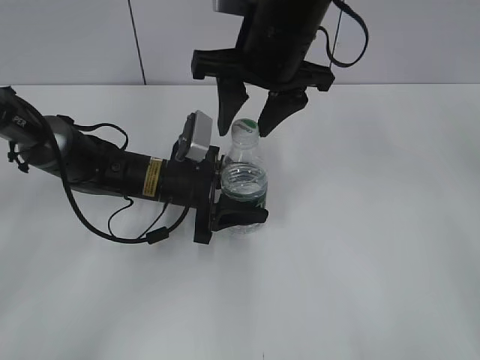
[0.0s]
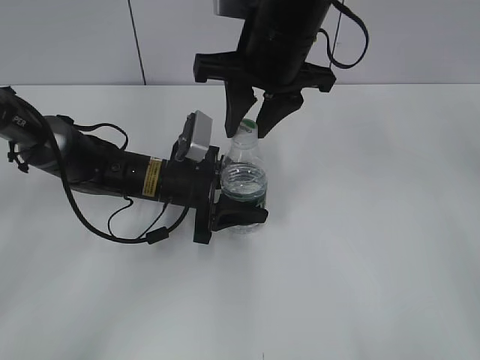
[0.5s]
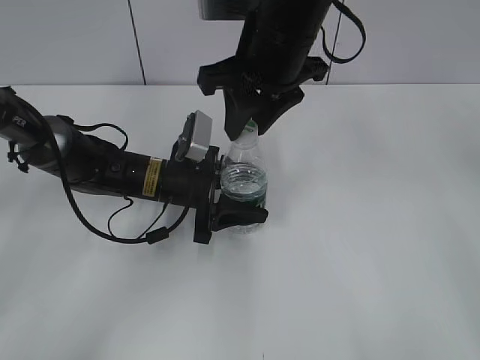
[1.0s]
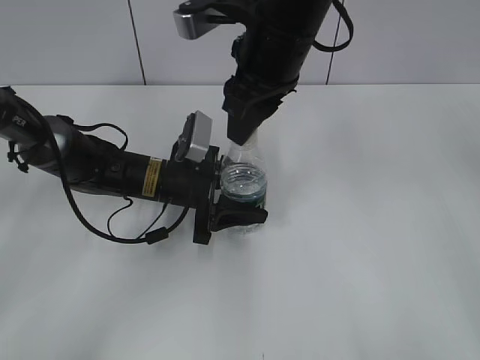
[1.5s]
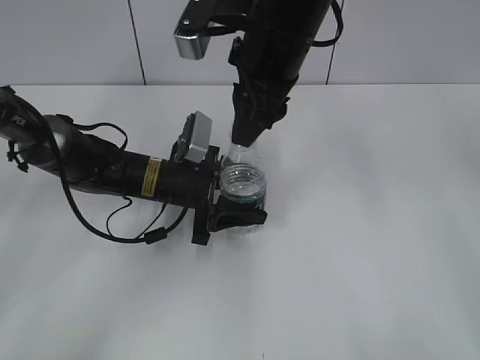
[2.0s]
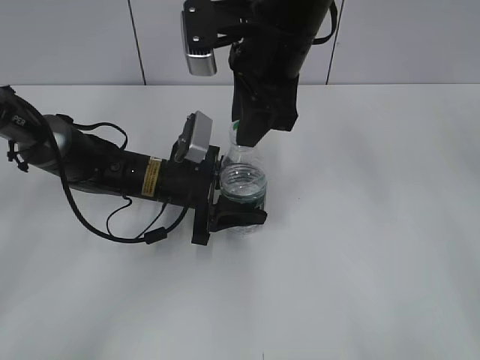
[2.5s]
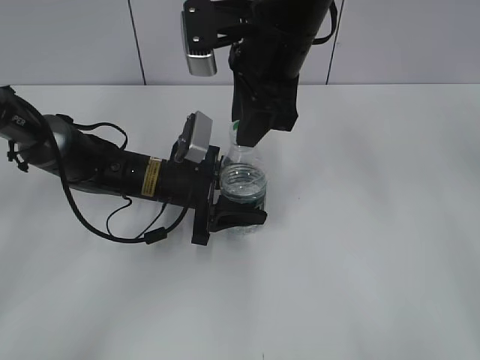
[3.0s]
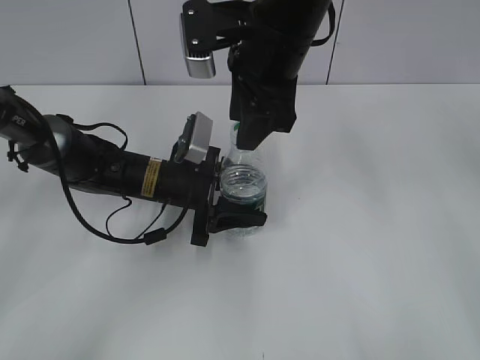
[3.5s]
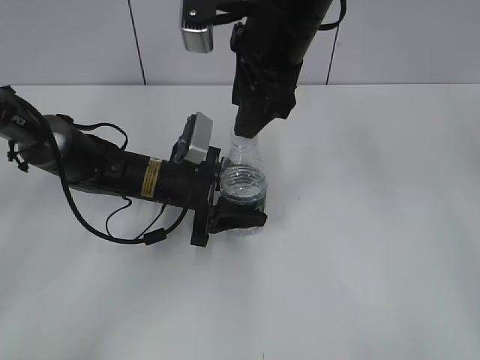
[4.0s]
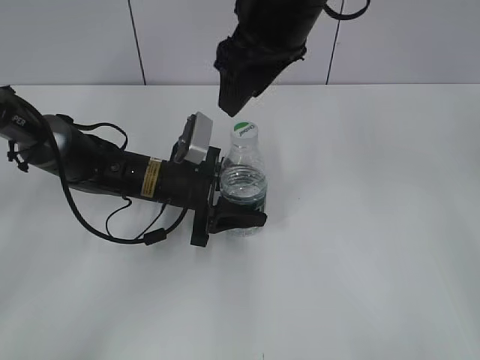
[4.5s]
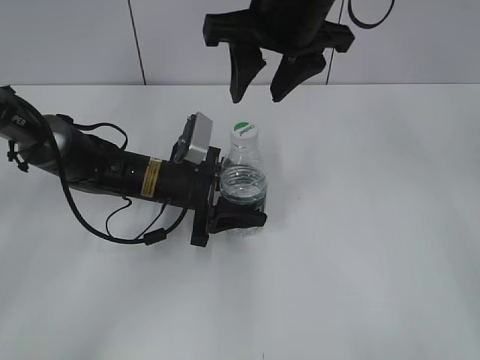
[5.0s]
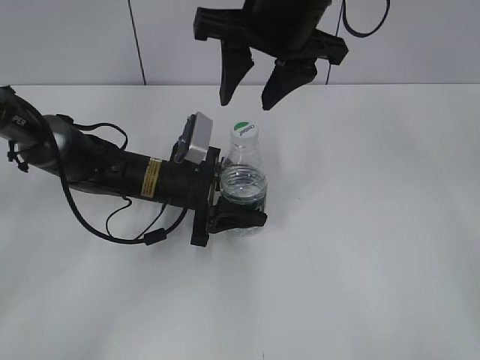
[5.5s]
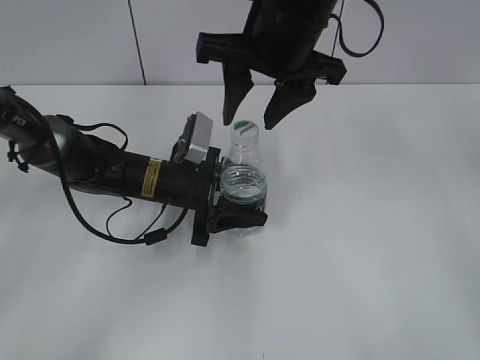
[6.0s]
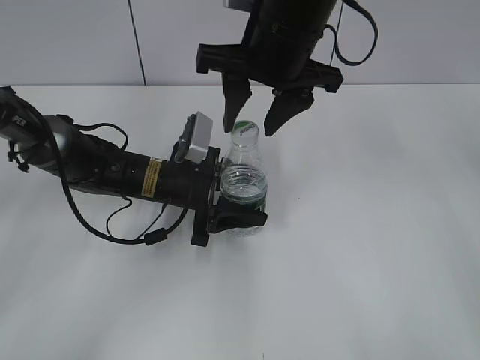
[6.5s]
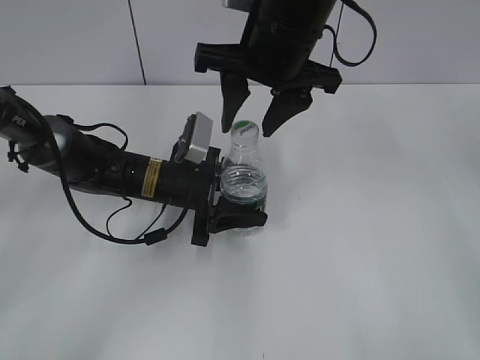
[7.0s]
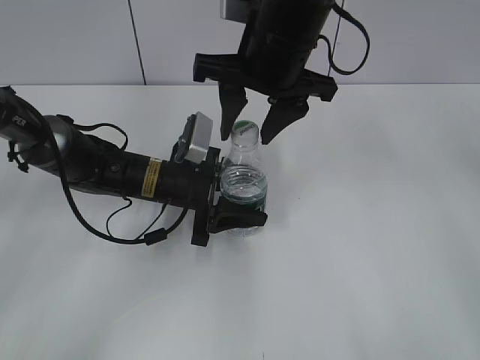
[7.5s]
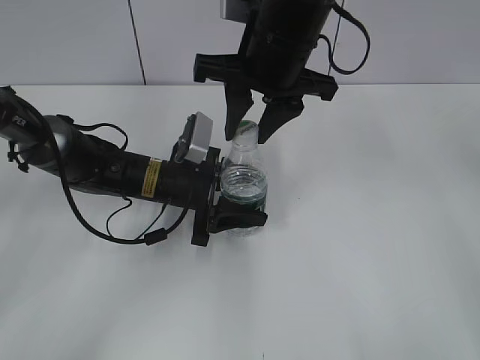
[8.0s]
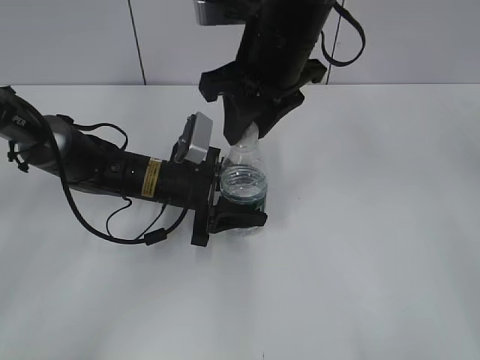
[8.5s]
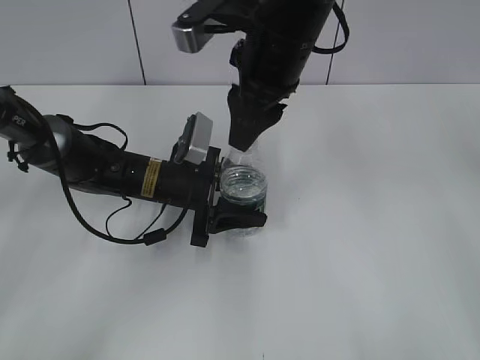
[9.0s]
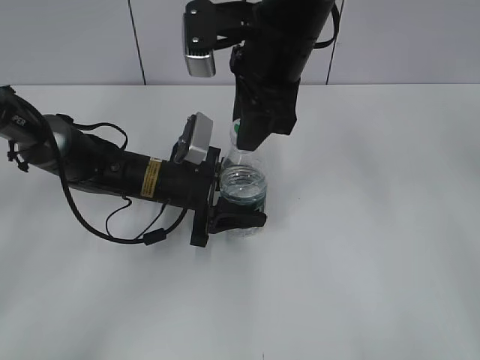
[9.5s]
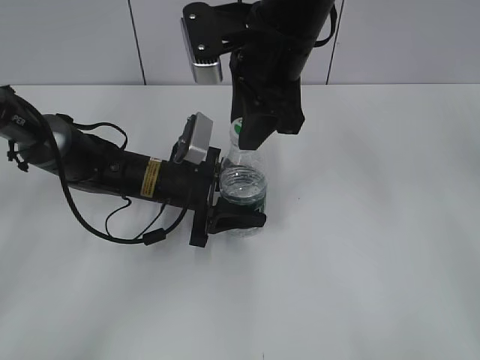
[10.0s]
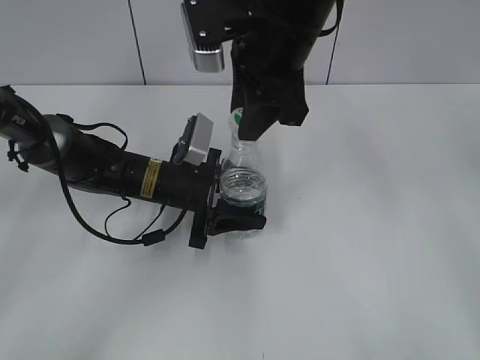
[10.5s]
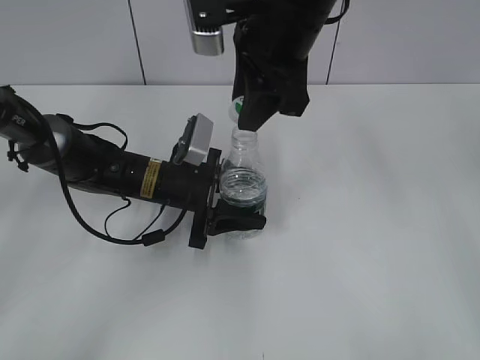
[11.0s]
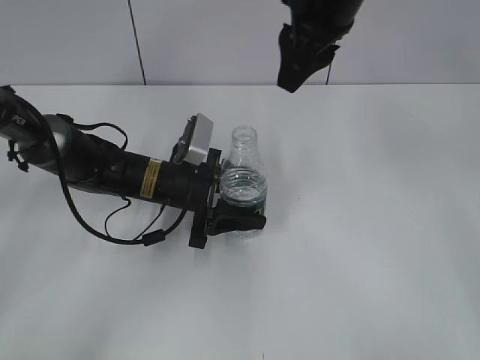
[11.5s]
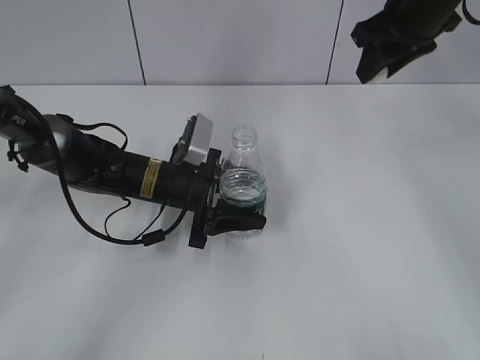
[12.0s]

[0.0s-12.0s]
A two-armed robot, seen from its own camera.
Step, 0.0s to 11.0s: Unscrew the bottle cap with the right gripper while holding the bottle with the left gripper.
0.0s to 2.0s: The right gripper closes its fingers.
2.0s to 4.0s: The right gripper opens its fingers.
6.0s to 8.0s: The right gripper closes its fingers.
10.0s to 12.0s: The right gripper heads to the right and forward, covering about 20 cm.

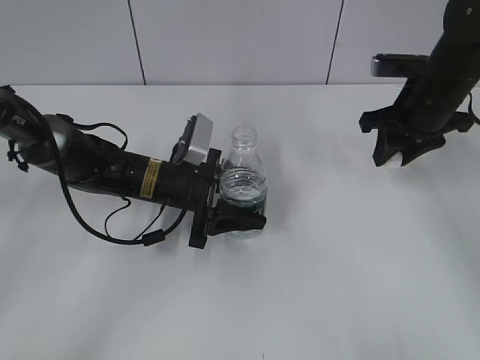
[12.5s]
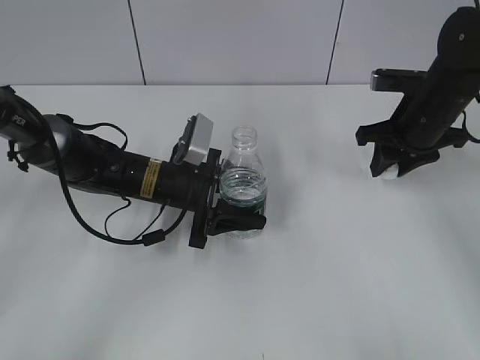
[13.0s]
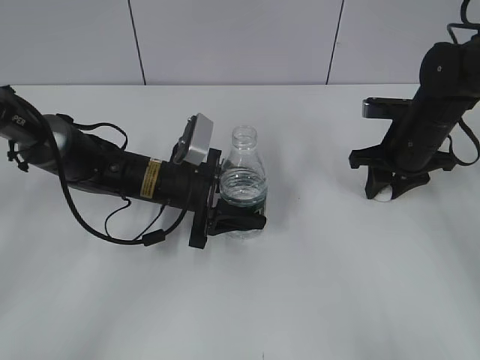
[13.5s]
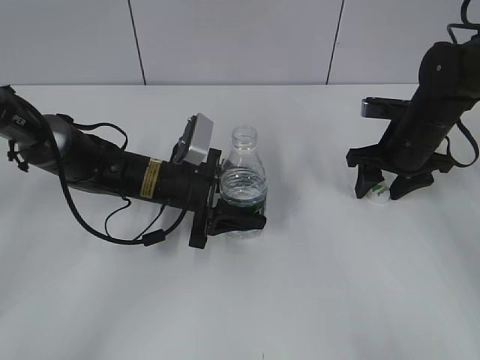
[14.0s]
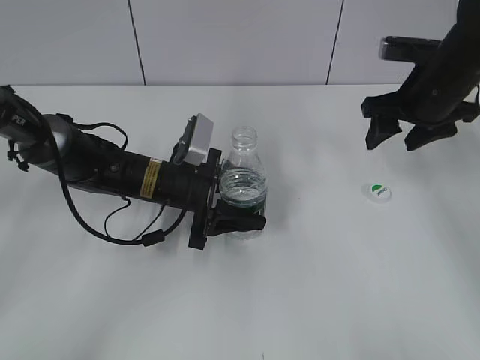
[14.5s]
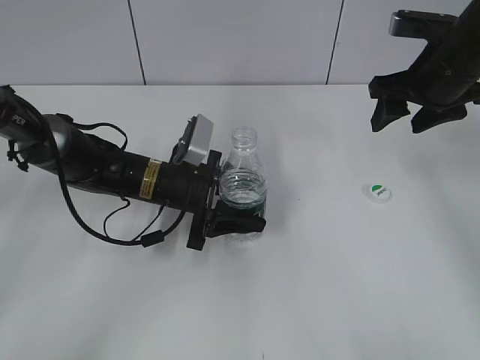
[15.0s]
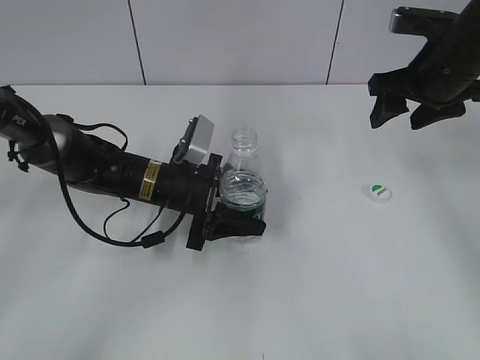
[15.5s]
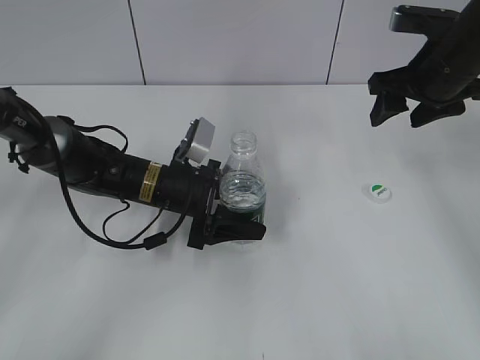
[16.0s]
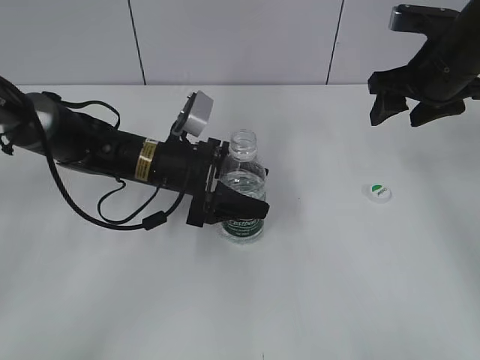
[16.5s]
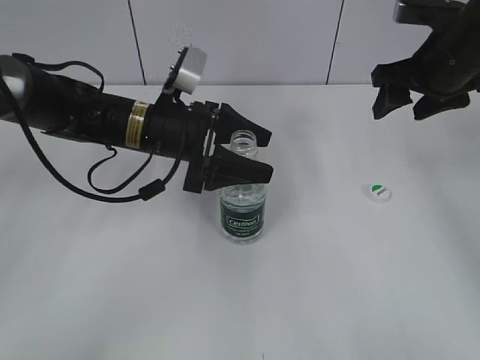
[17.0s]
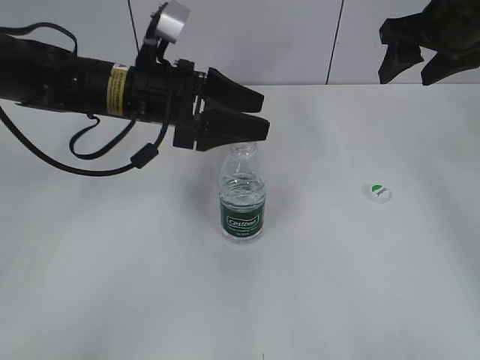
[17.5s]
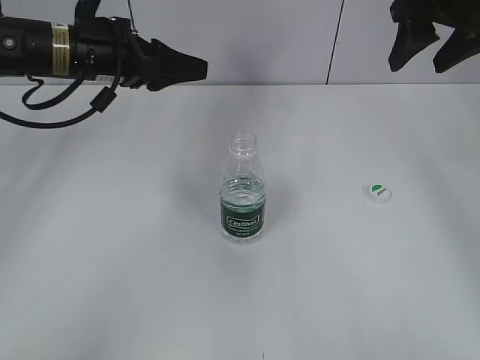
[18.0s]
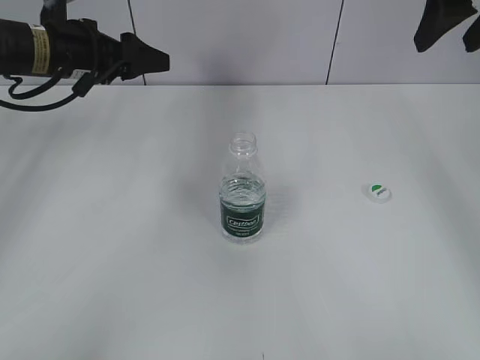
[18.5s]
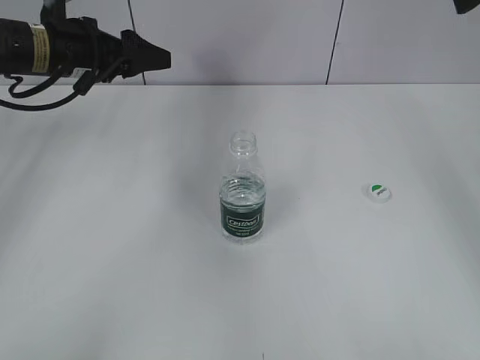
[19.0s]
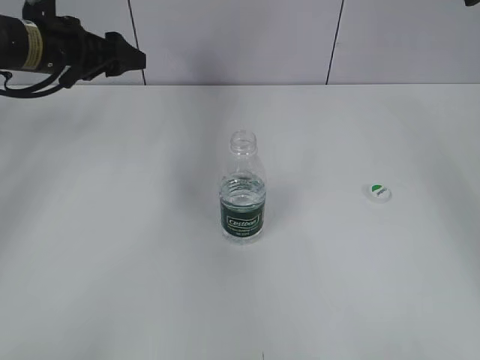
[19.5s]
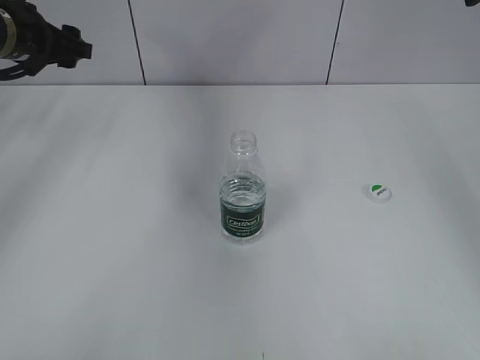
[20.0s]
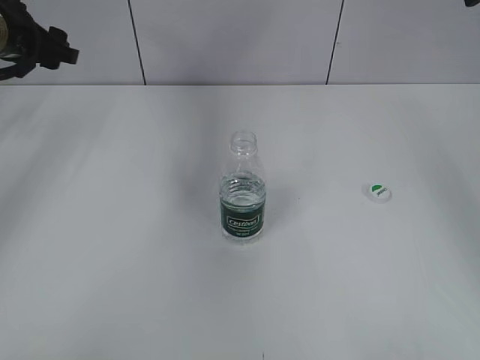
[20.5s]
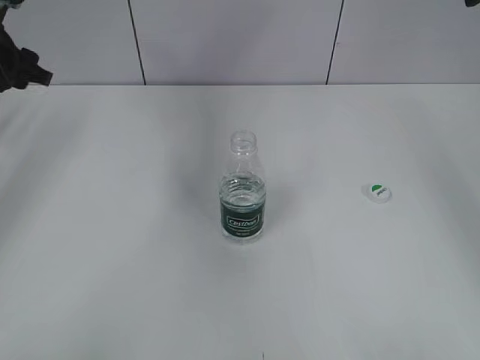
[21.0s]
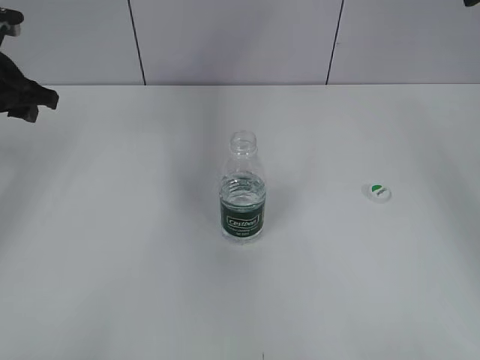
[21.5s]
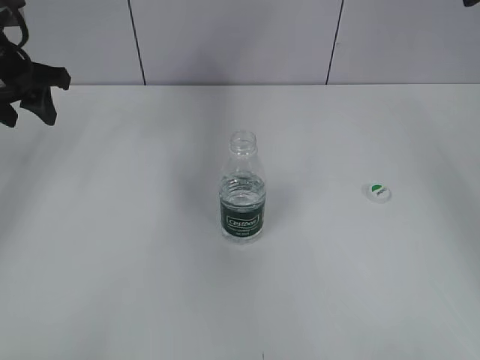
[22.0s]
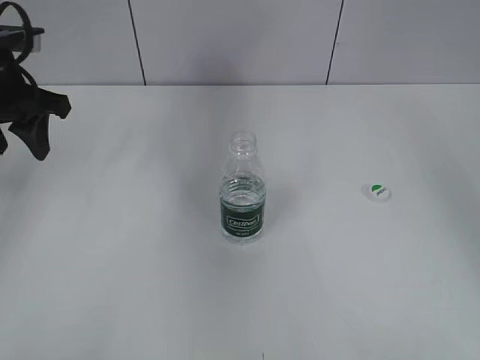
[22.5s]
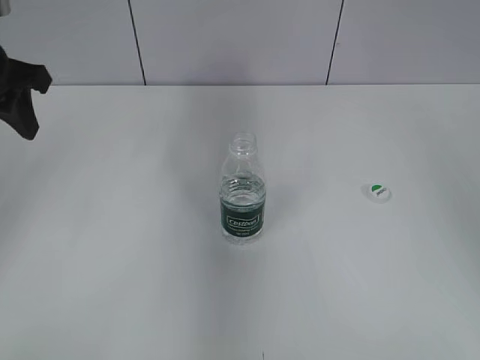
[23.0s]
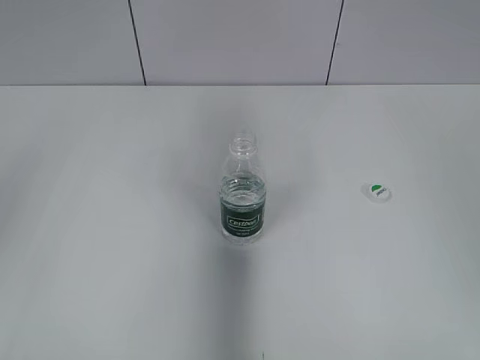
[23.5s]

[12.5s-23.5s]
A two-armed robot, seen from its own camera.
Step, 14.5s to 16.5s: Place the bottle on the table with the left gripper.
12.5s to 14.5s: The right gripper moves roughly 5 cm downward and comes back, and opens up.
14.5s to 16.0s: There are only small adjustments of the grippers.
16.0s to 18.0s: The right gripper shifts approximately 10 cm upward, while the left gripper travels upward and to the left by about 20 cm.
18.0s to 20.0s: The right gripper heads upward and backward, covering some 15 cm; the left gripper travels to the left by approximately 10 cm.
20.0s to 21.5s: The left gripper ends up approximately 5 cm from where it was, and closes.
21.5s to 23.5s: The right gripper shifts some 15 cm backward. The left gripper travels backward and upward by approximately 25 cm.

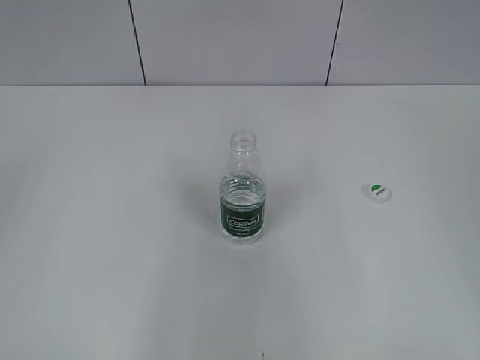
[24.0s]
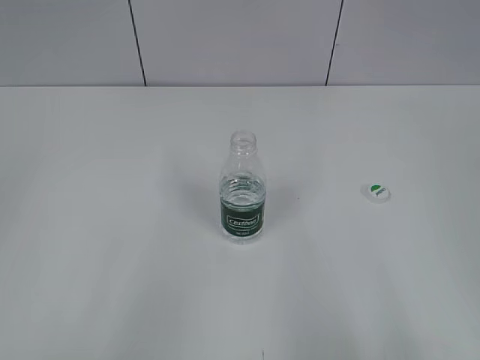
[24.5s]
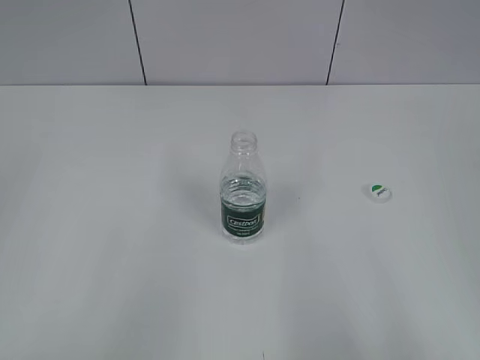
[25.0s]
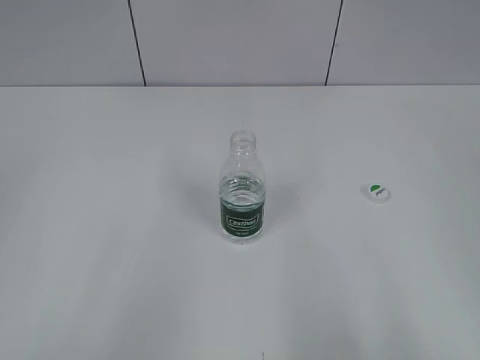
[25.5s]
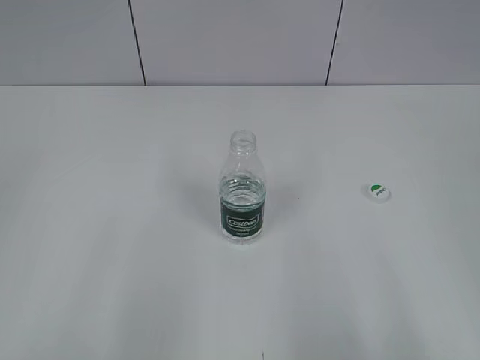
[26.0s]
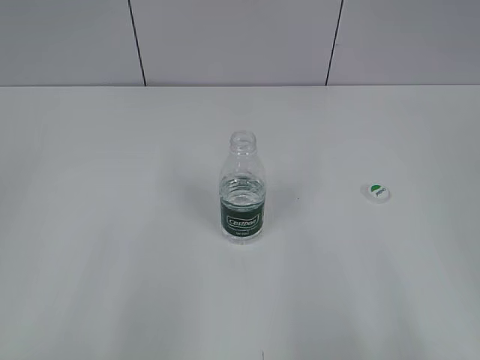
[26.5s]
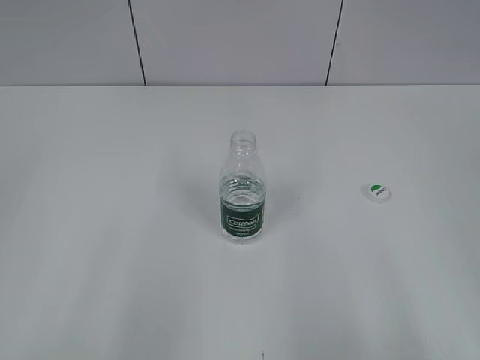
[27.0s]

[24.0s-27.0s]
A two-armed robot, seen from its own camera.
24.0s to 25.5s: The right gripper is displaced downward and backward by roughly 10 cm; the left gripper shifts approximately 5 cm backward.
